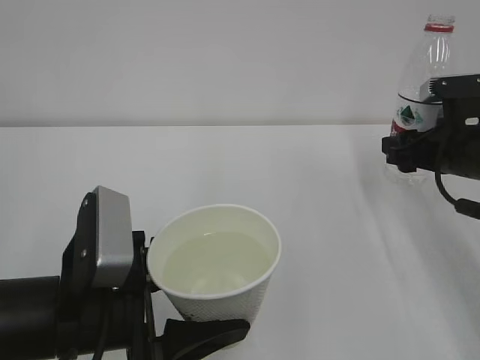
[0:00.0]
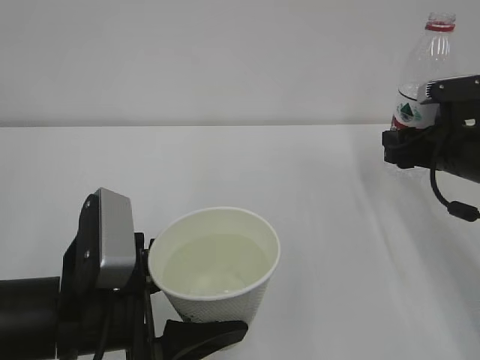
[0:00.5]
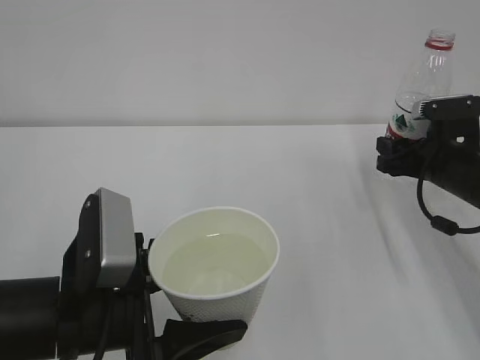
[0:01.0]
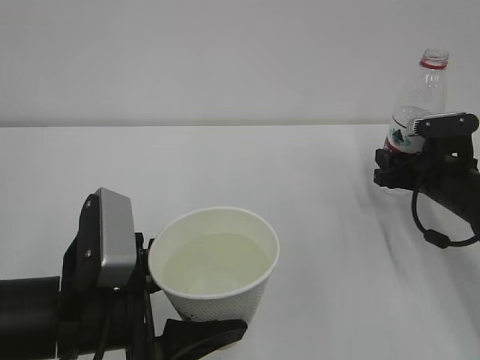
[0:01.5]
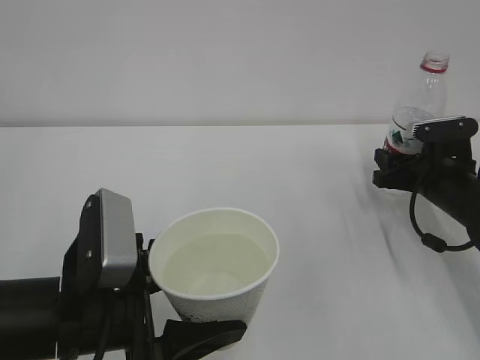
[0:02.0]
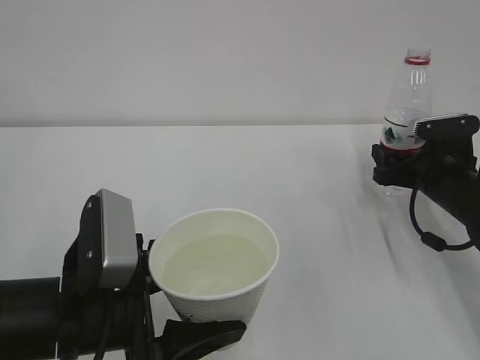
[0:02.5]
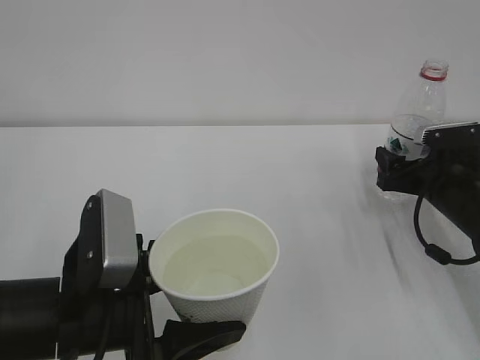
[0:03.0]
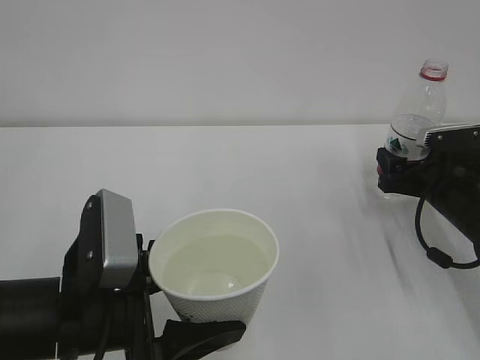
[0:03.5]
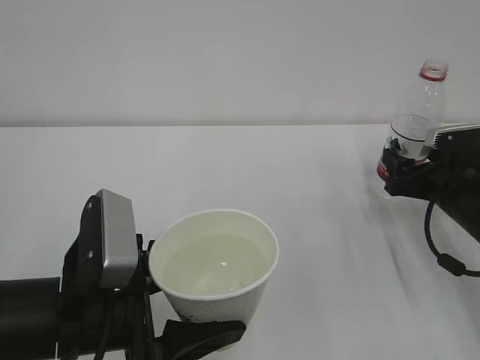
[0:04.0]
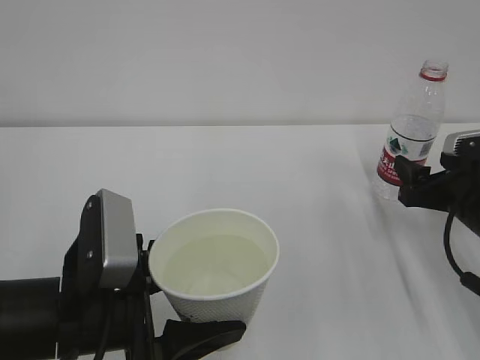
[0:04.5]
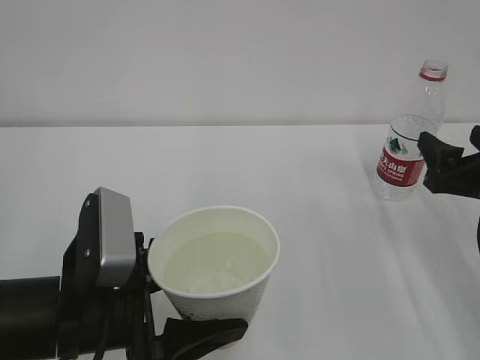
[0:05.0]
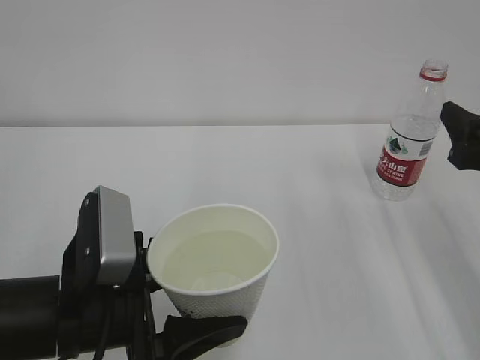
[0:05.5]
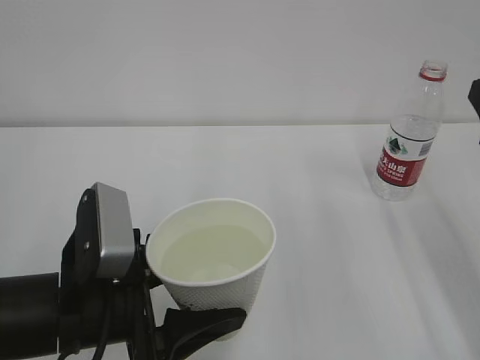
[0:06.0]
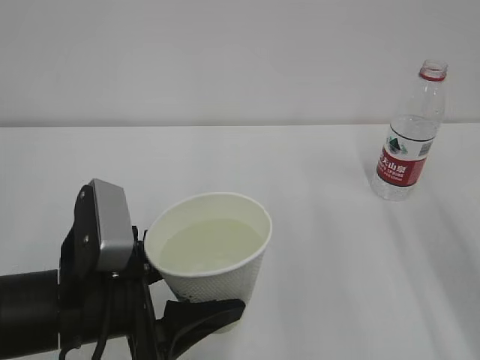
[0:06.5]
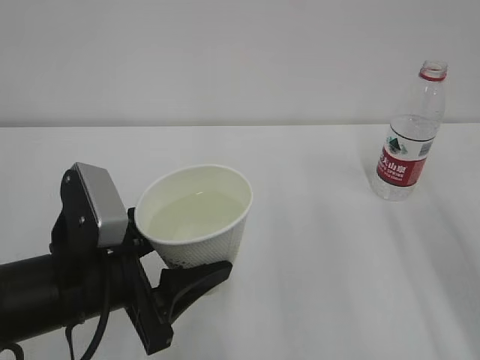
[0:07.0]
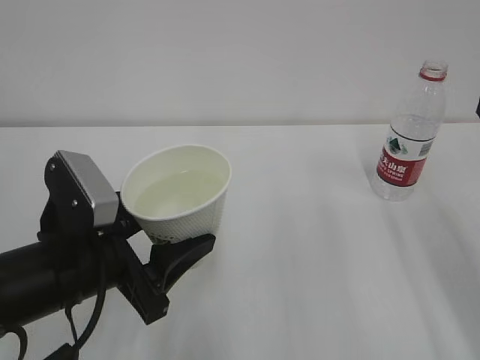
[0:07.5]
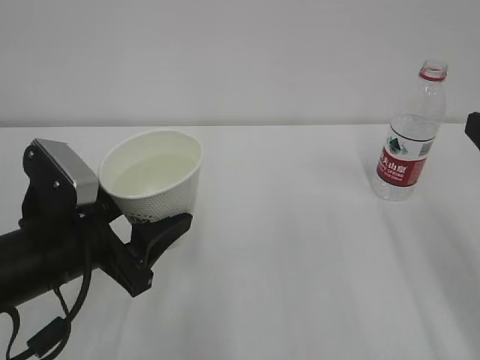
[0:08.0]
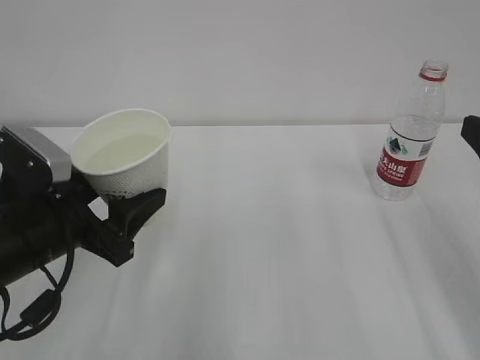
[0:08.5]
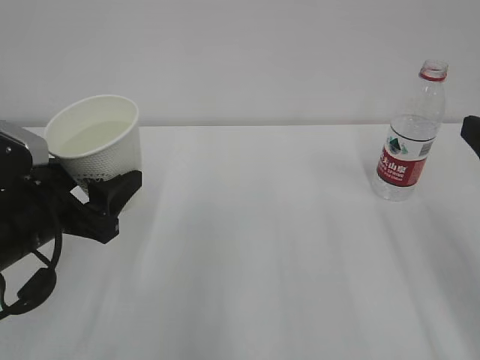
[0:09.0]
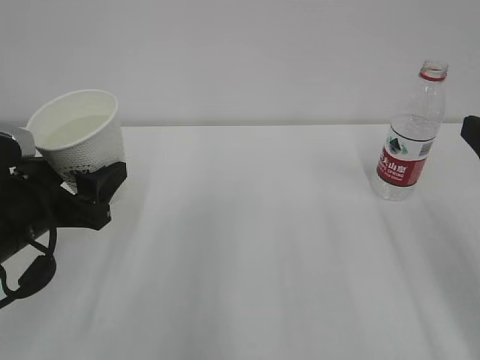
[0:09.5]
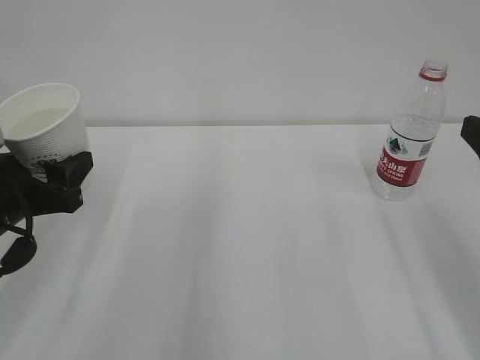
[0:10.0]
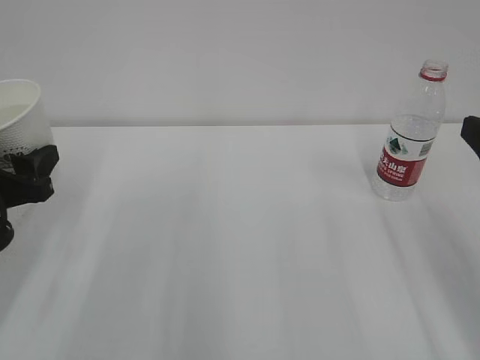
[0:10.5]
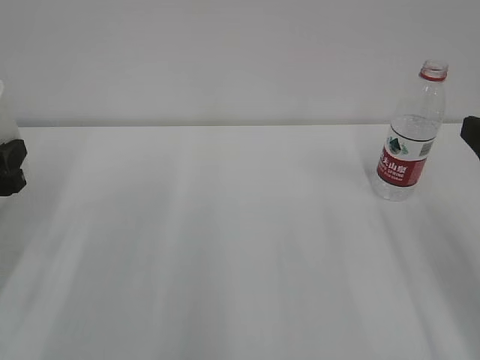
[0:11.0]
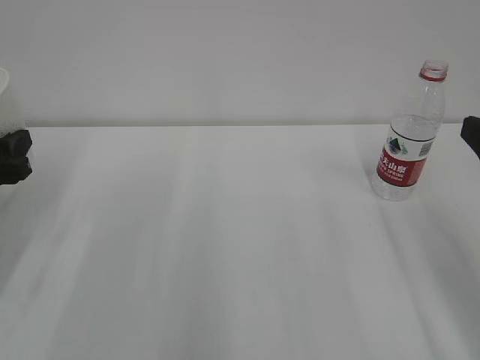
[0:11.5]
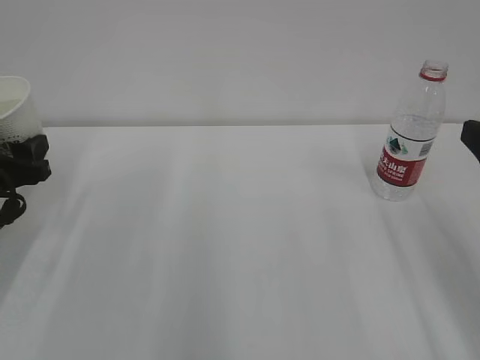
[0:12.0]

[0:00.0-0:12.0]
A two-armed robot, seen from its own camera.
0:00.0 to 0:02.0: The right gripper goes approximately 10 cm downward.
0:02.0 to 0:04.0: The right gripper opens up.
0:04.0 to 0:06.0: The right gripper moves upward and backward, some 20 cm.
0:06.0 to 0:08.0: The left gripper changes place by approximately 5 cm.
0:08.0 to 0:10.0: The left gripper shifts some 10 cm to the left.
0:10.0 to 0:12.0: The left gripper heads to the left and forward, covering some 10 cm.

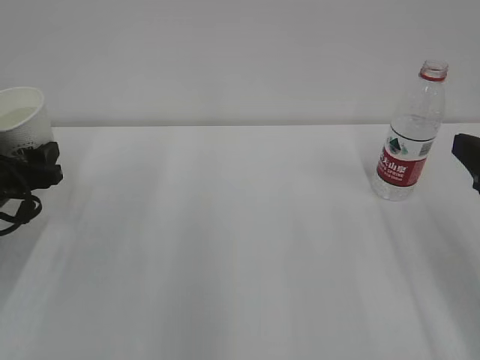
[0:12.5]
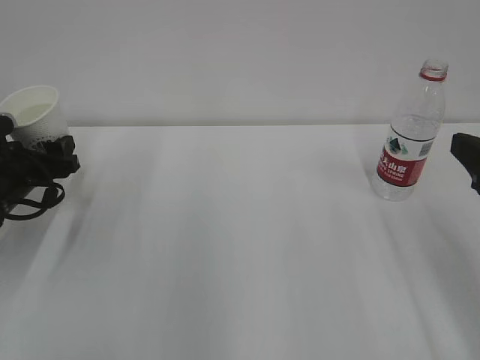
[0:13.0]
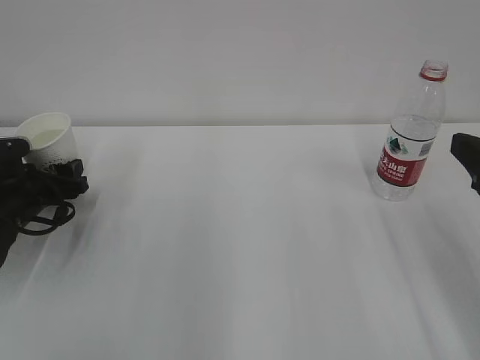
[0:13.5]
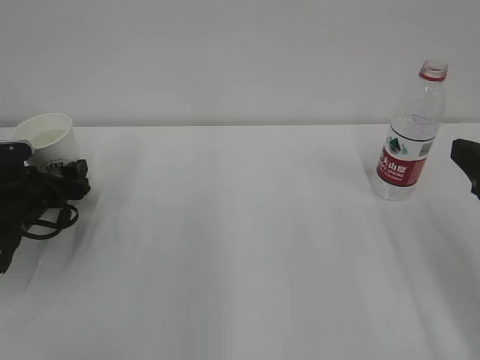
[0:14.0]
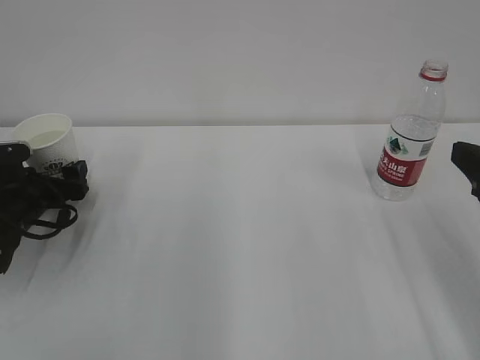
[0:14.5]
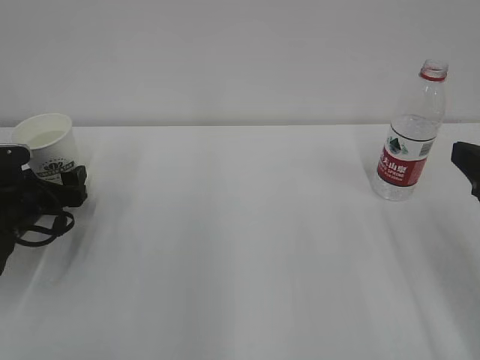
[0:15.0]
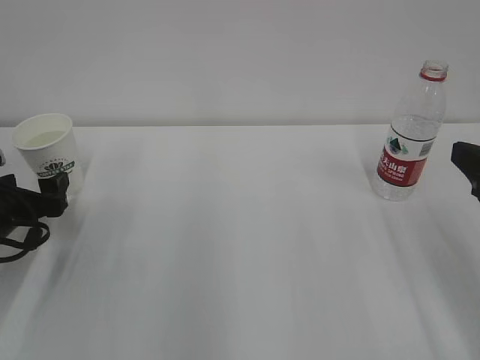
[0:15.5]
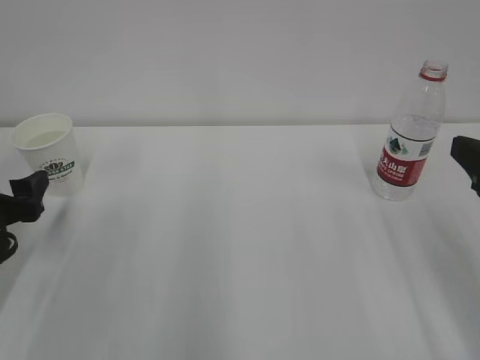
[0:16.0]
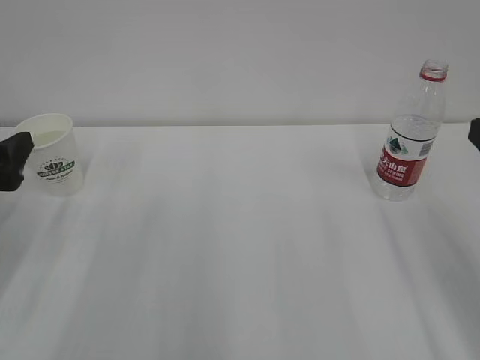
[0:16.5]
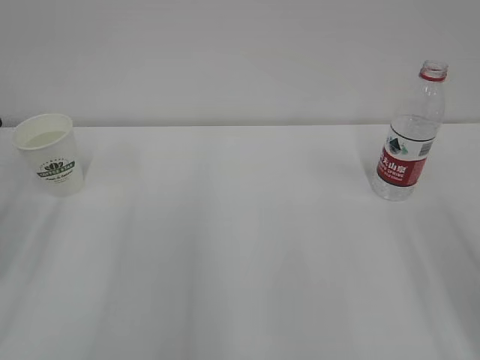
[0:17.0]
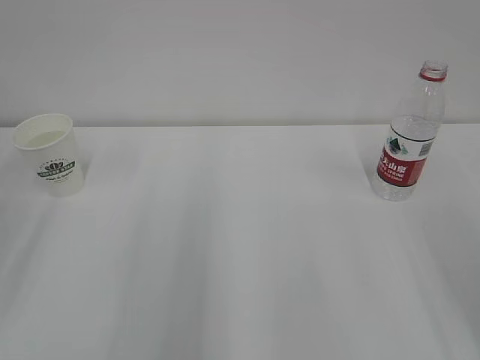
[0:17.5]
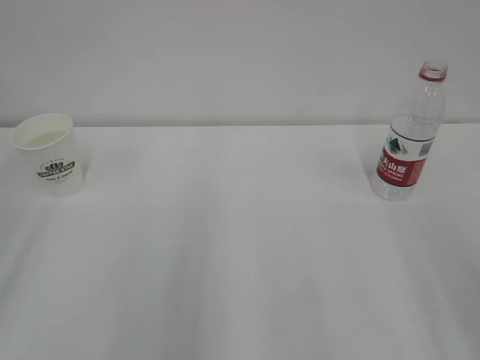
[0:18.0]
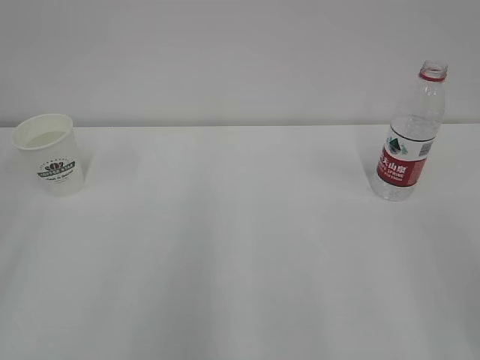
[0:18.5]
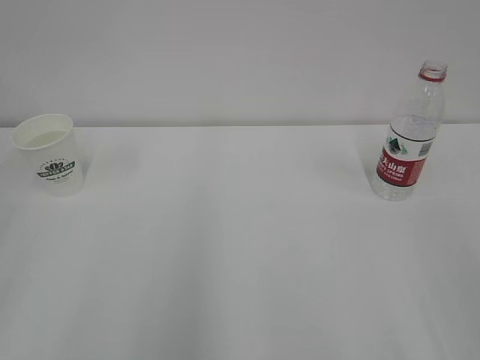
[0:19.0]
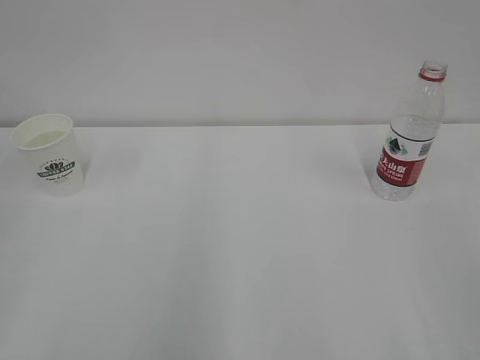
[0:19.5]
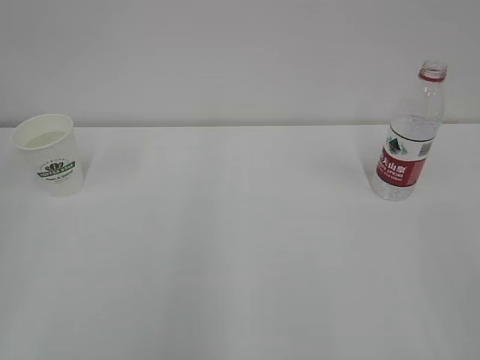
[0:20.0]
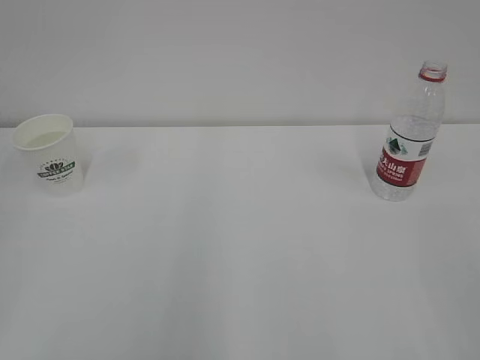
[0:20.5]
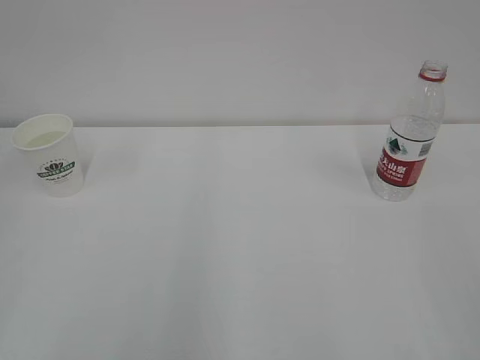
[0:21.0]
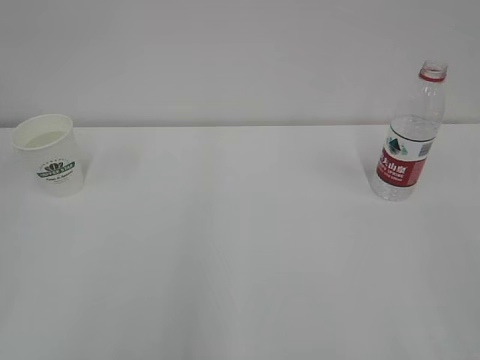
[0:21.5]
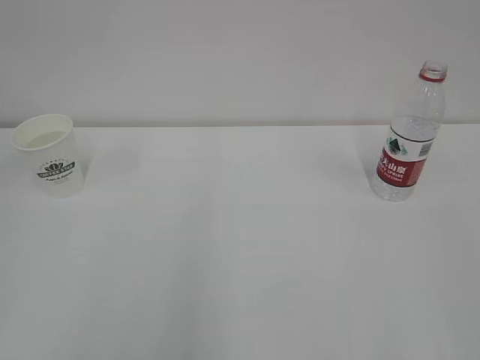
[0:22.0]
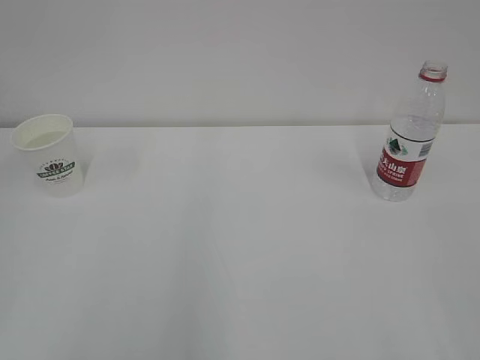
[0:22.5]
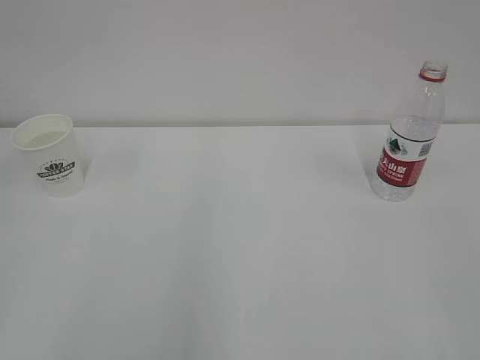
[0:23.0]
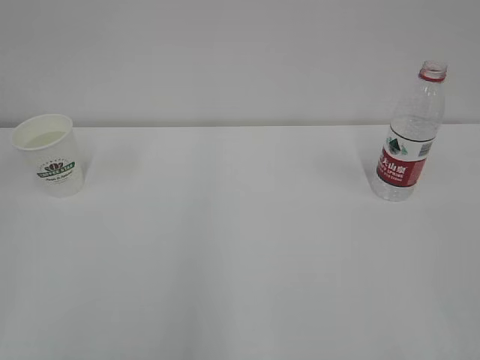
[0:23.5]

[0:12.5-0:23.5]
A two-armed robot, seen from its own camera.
0:12.5 to 0:14.5: The left gripper goes about 5 cm downward, and opens its fingers.
0:14.5 to 0:16.0: The left gripper shifts some 10 cm backward and upward.
0:16.0 to 0:18.0: The left gripper shifts some 20 cm upward and backward, and closes up. The right gripper goes some 10 cm backward, and closes its fingers.

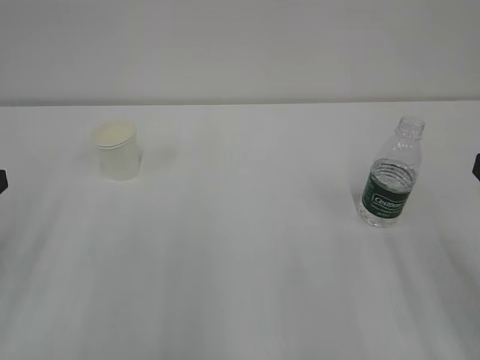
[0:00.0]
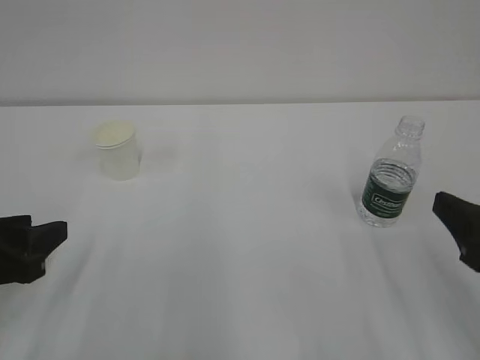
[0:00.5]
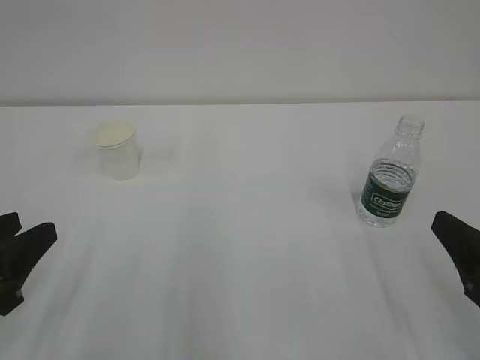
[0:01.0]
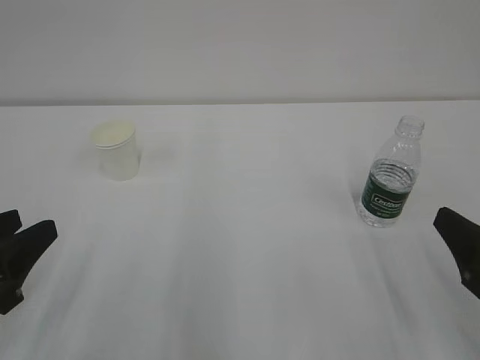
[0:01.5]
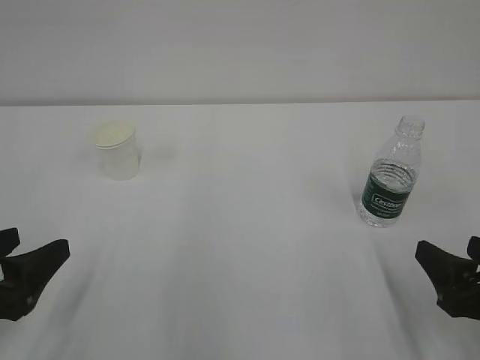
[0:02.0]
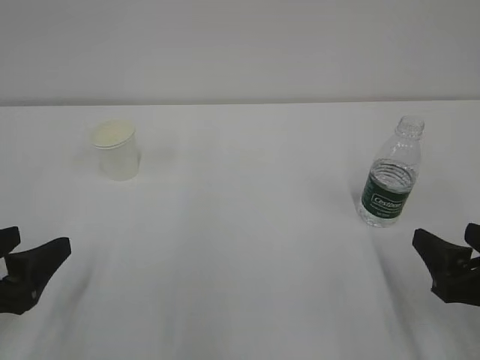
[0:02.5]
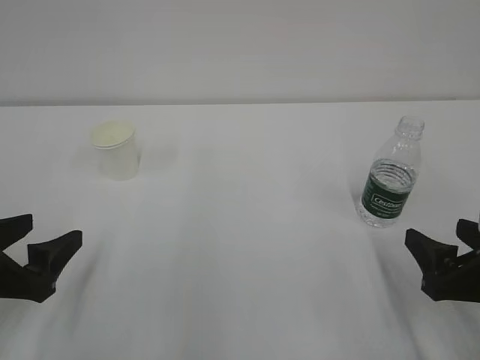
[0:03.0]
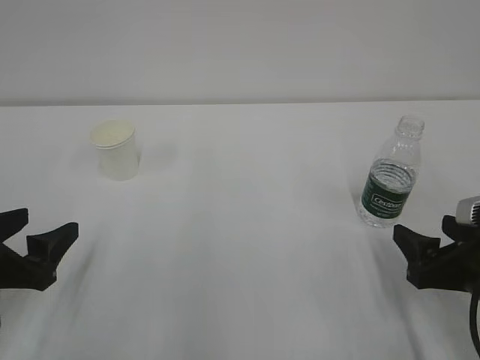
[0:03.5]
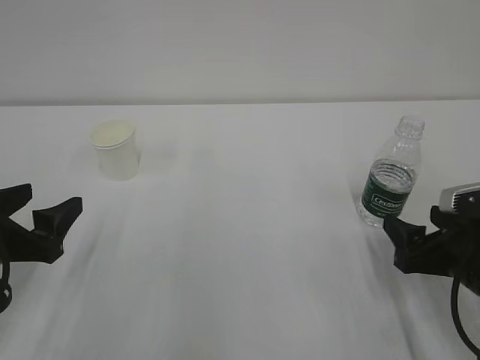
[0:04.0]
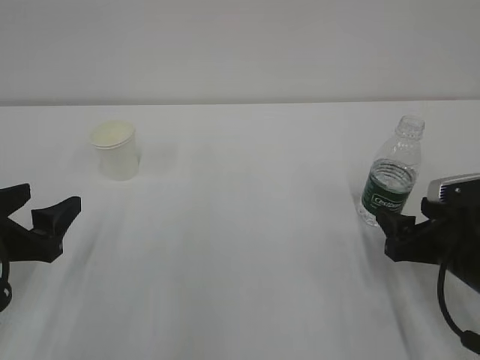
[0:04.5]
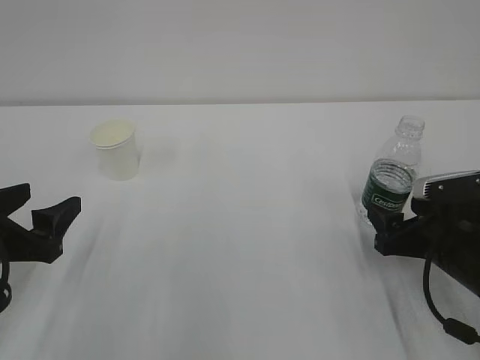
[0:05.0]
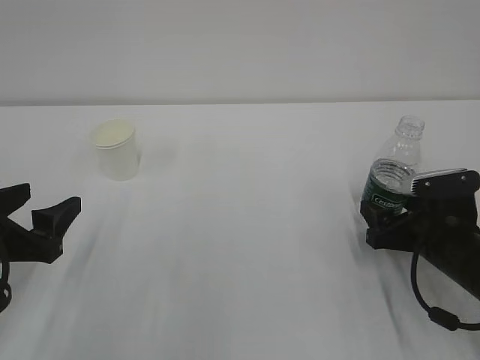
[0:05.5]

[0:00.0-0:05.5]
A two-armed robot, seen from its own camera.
0:00.0 to 0:02.0: The right gripper goes roughly 10 cm downward; the left gripper heads downward, covering about 5 cm, and opens up.
0:02.0 to 0:03.5: The grippers make only small movements.
0:03.5 to 0:05.5: The right gripper heads forward, covering about 10 cm.
